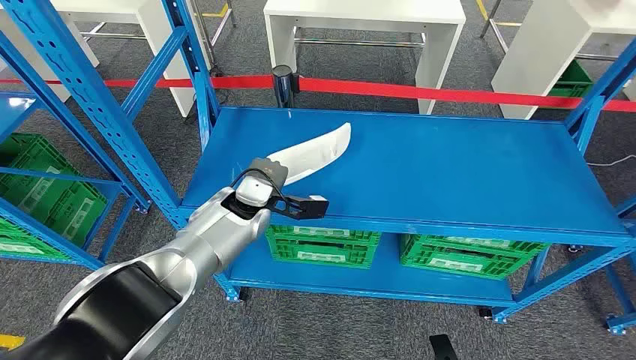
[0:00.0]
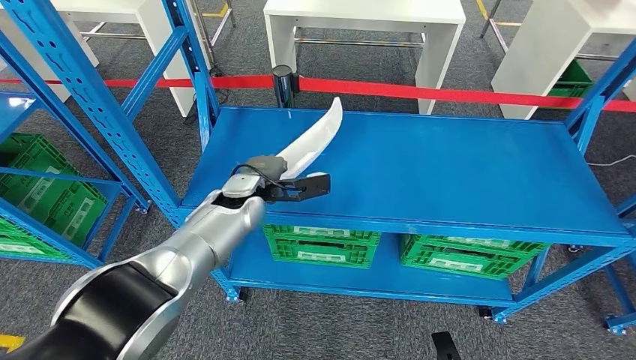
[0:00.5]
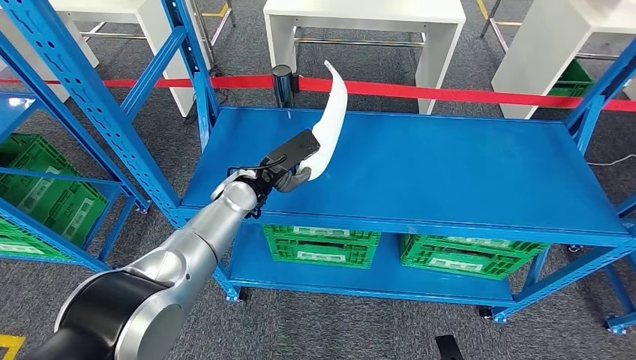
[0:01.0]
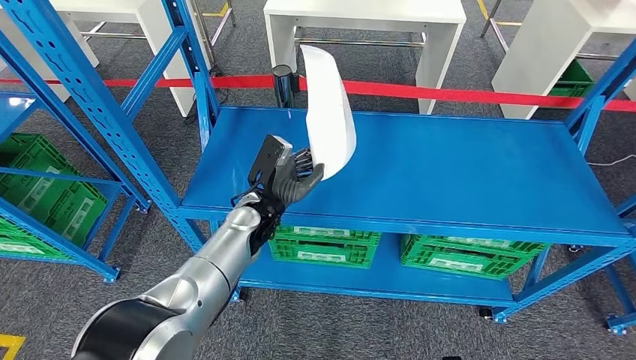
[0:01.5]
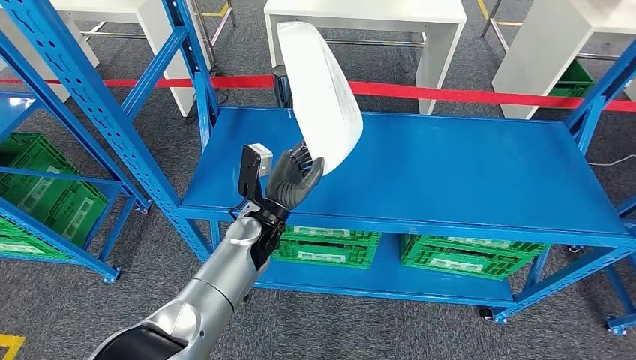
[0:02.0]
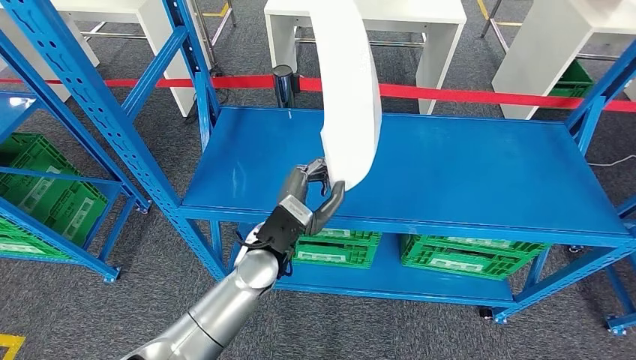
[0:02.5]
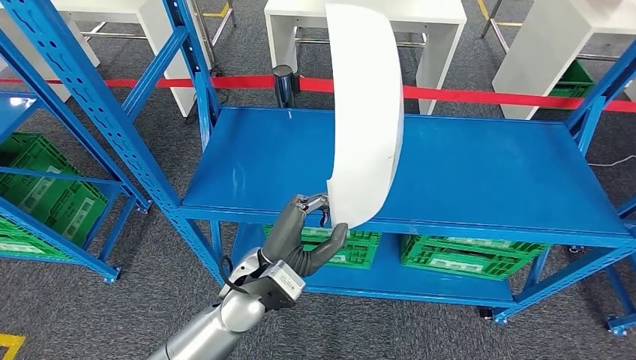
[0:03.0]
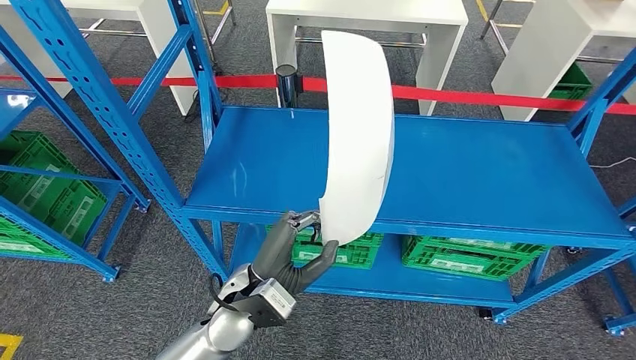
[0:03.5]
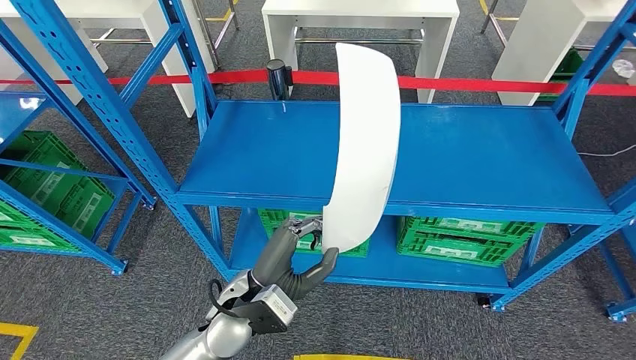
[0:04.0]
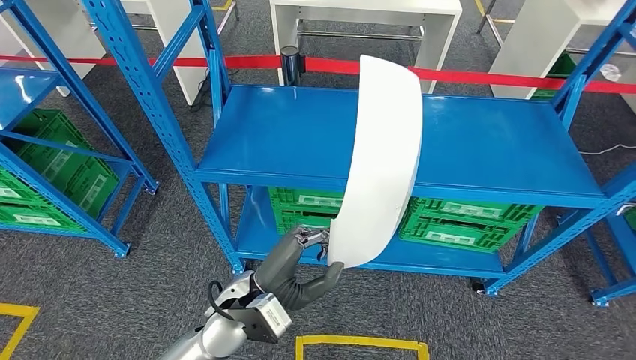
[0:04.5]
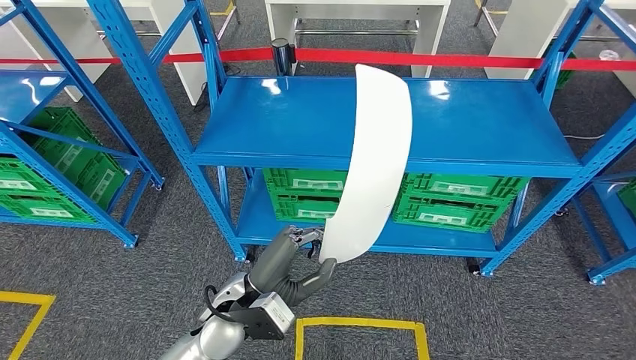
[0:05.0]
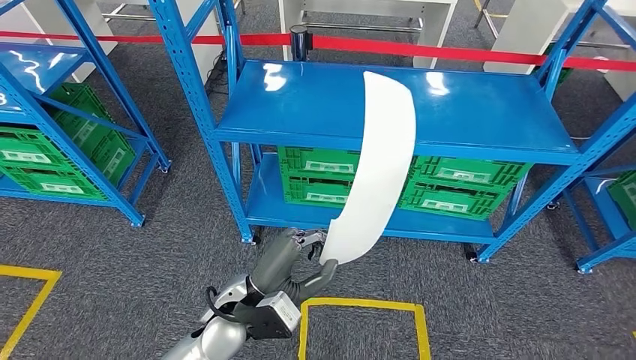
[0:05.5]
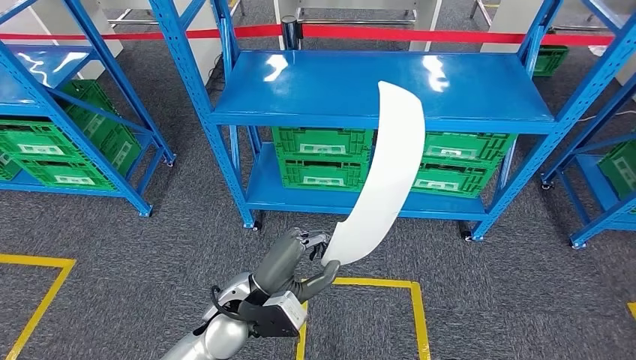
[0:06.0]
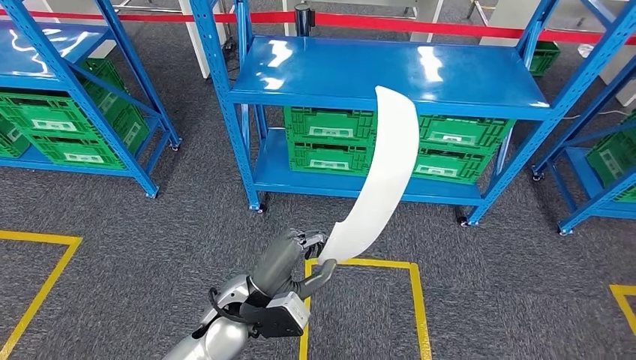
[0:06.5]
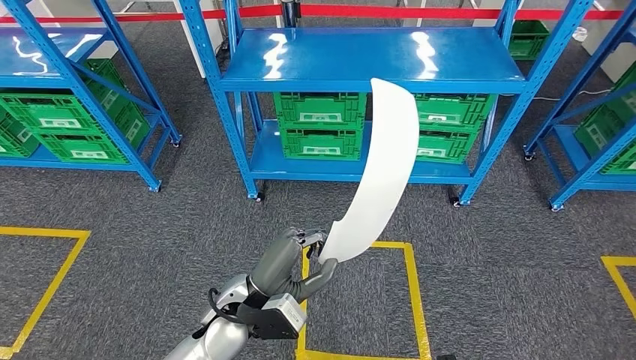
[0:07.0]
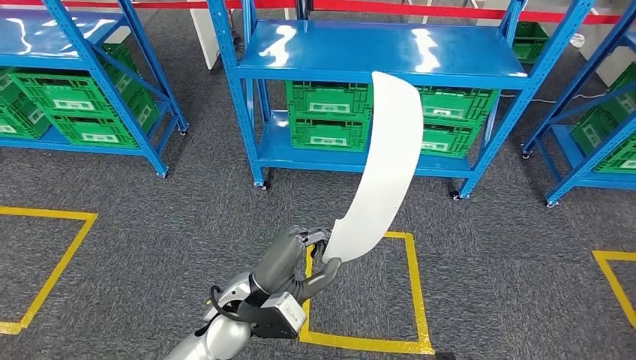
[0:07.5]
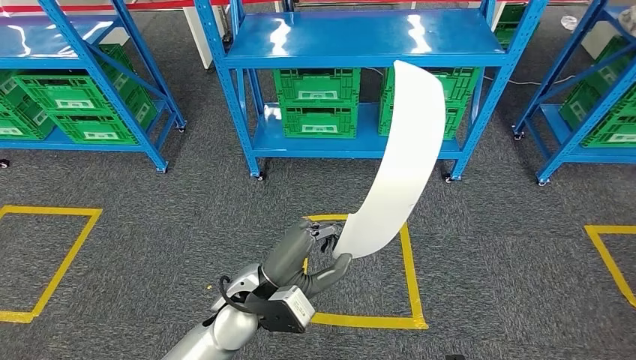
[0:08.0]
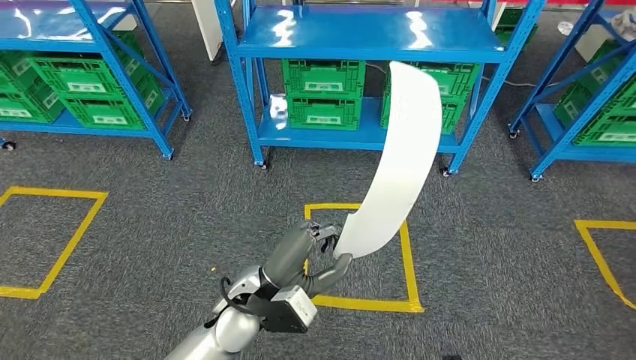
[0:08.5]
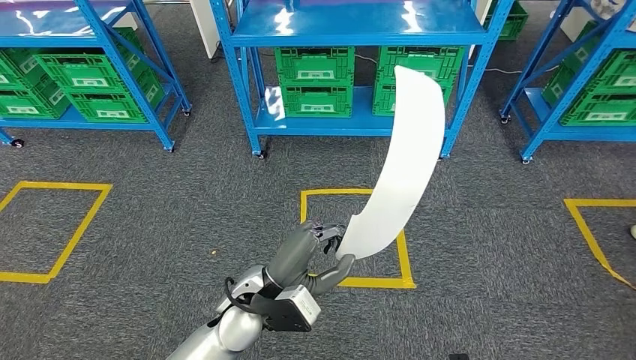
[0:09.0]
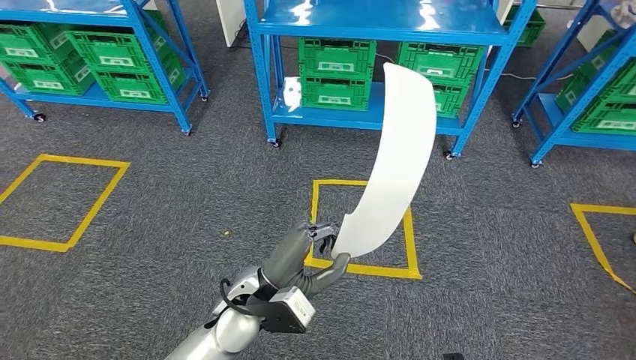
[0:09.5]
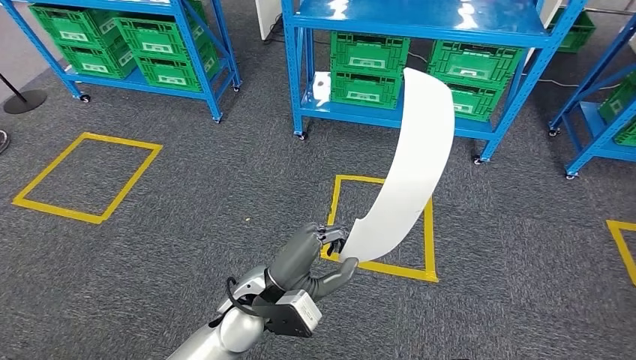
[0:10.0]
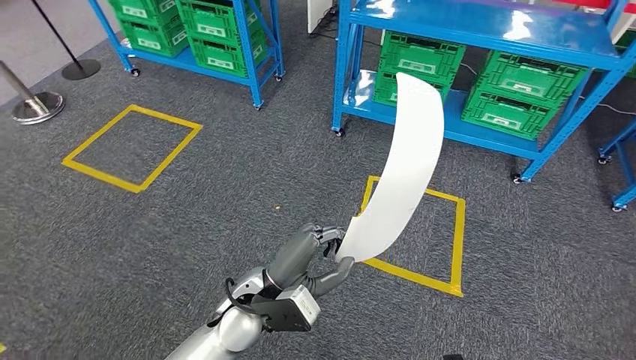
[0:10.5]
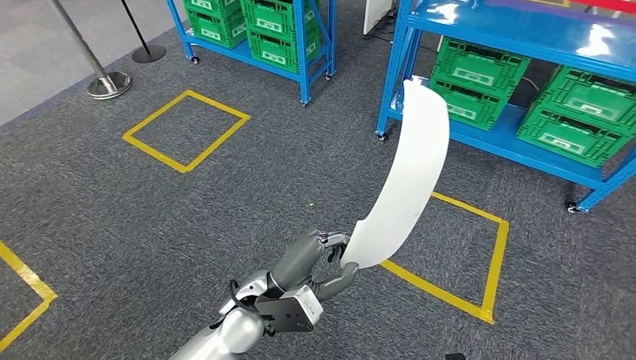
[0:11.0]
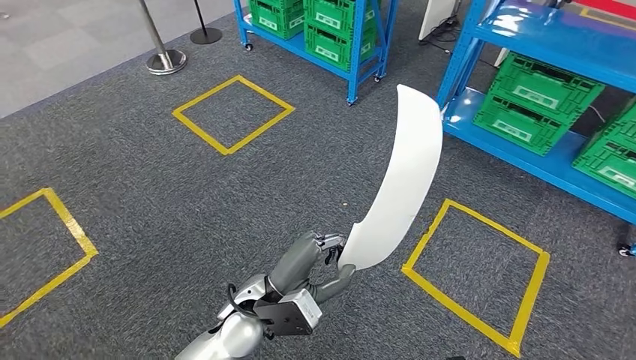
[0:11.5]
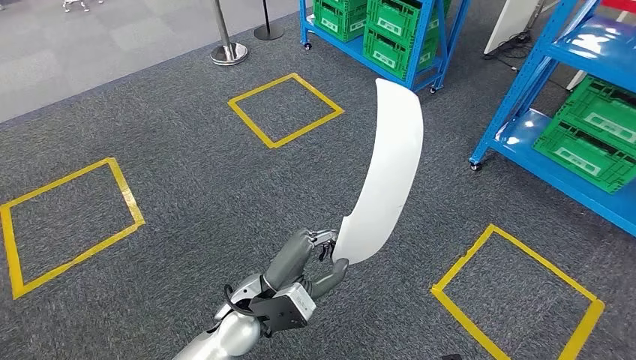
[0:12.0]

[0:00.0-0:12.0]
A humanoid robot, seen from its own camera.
Step, 0:00.0 to 0:02.0: Pick up the small parts from the shelf.

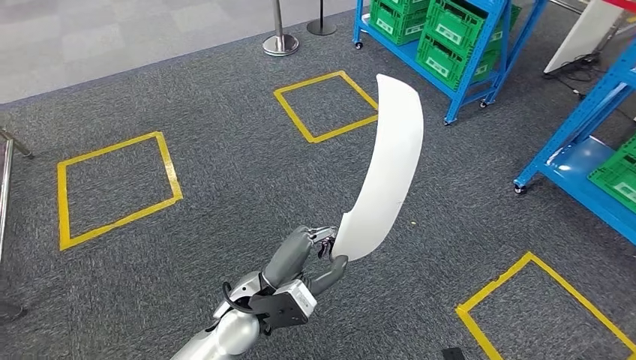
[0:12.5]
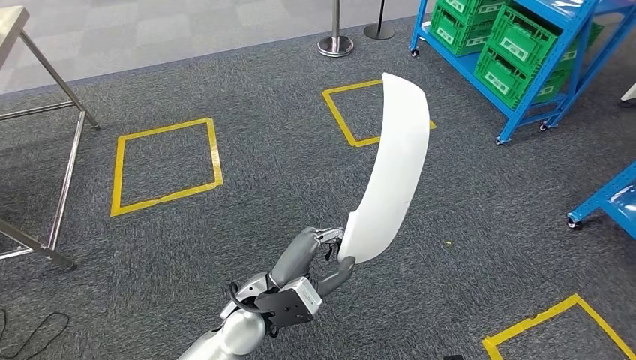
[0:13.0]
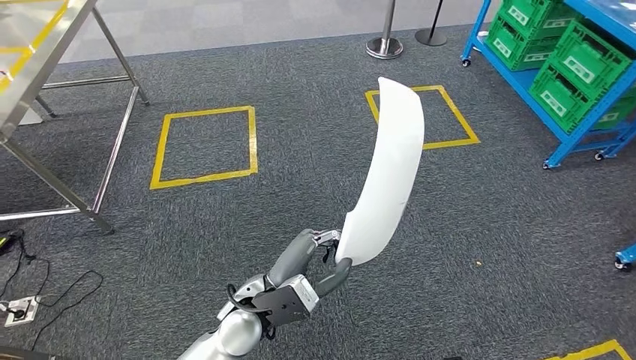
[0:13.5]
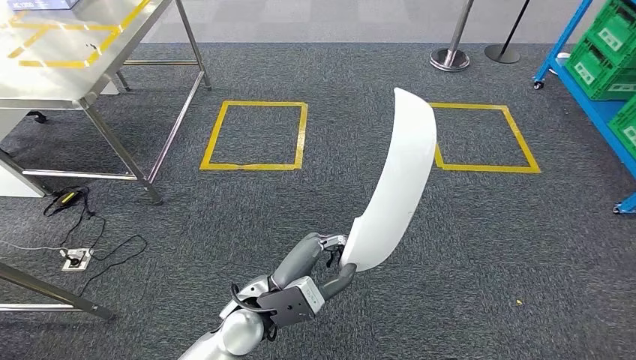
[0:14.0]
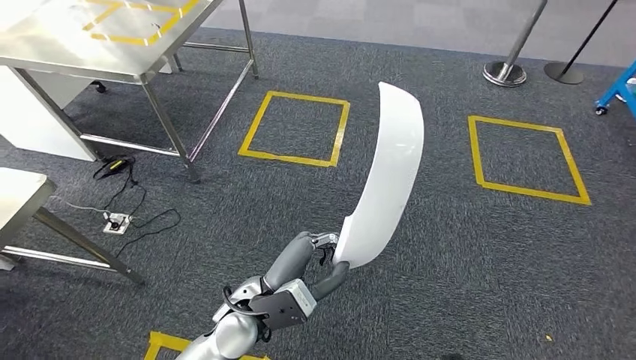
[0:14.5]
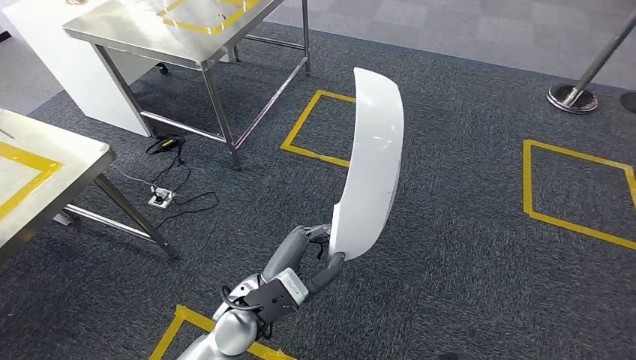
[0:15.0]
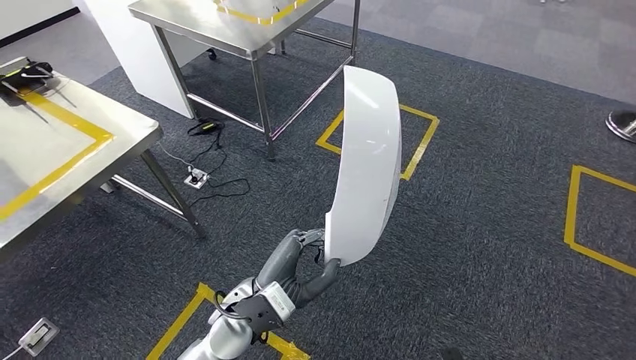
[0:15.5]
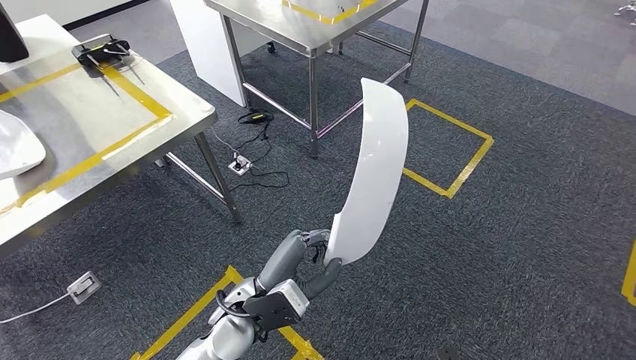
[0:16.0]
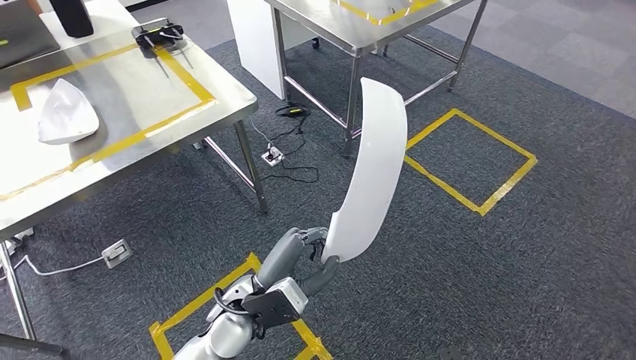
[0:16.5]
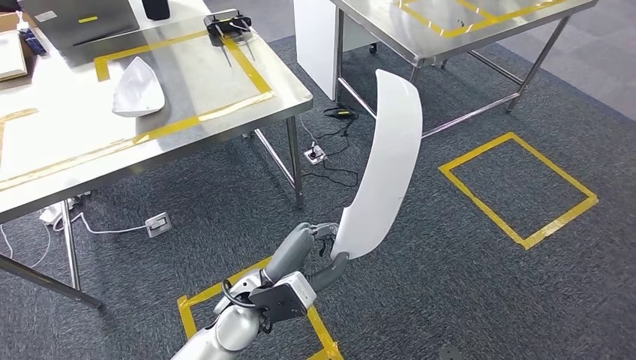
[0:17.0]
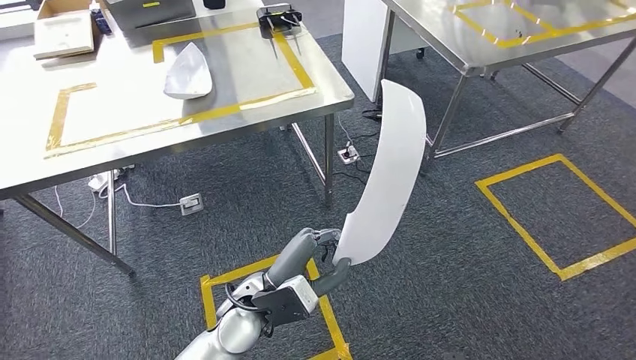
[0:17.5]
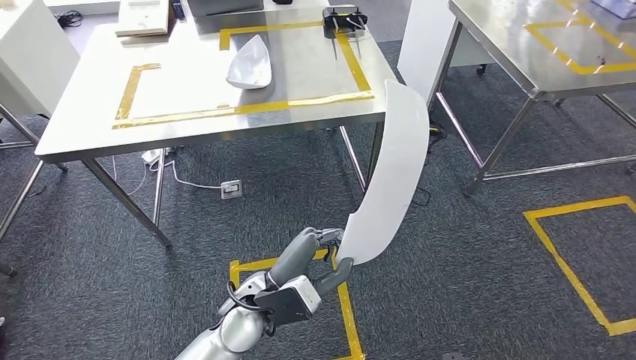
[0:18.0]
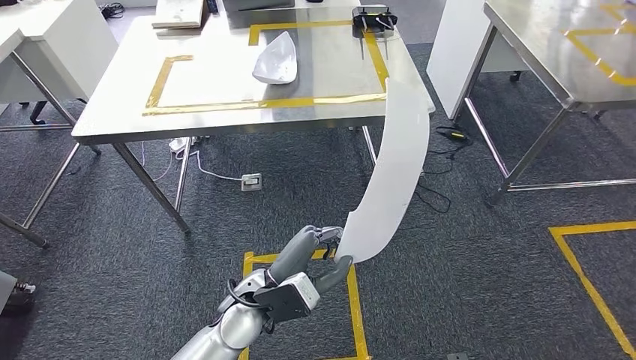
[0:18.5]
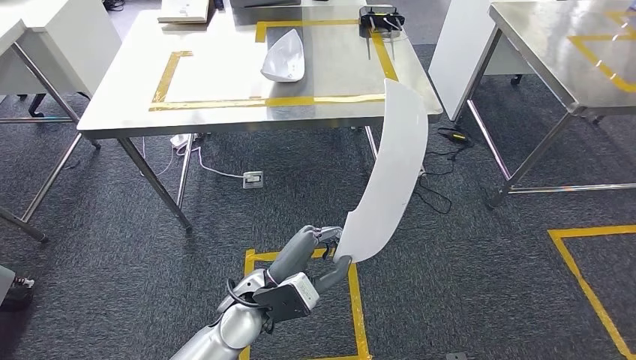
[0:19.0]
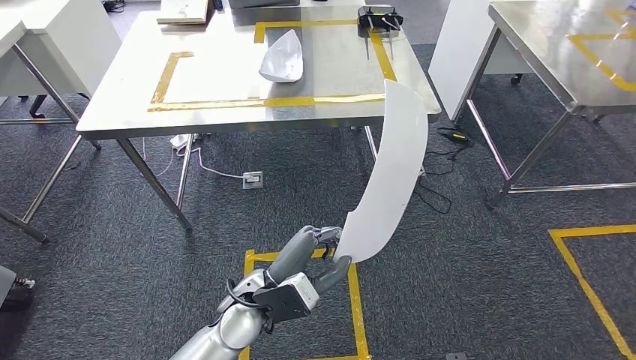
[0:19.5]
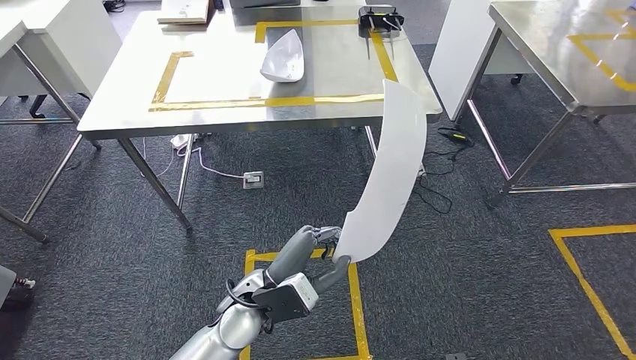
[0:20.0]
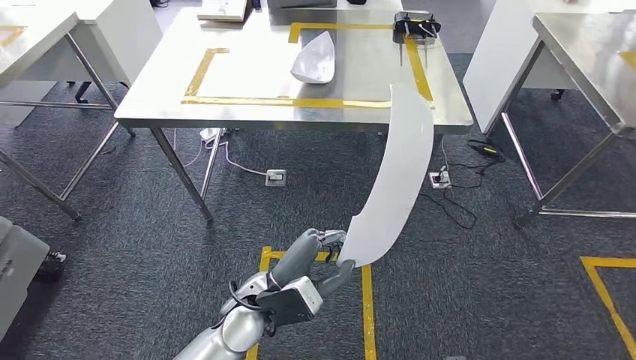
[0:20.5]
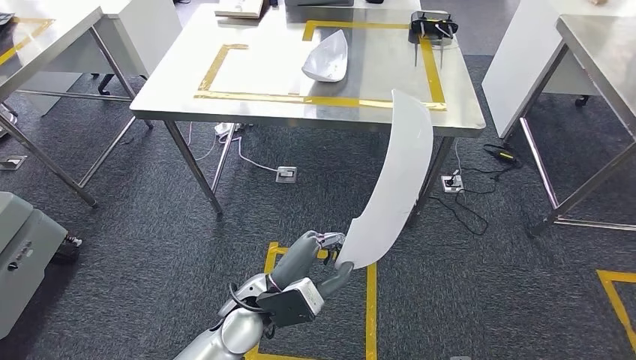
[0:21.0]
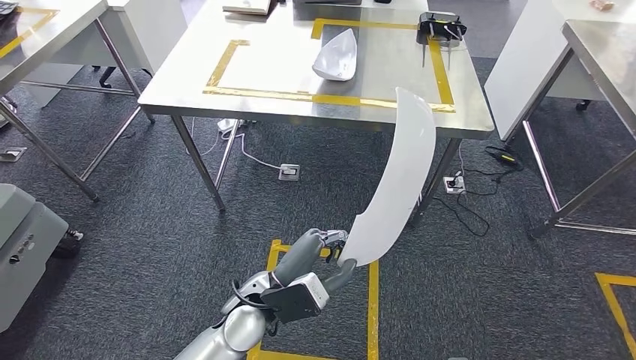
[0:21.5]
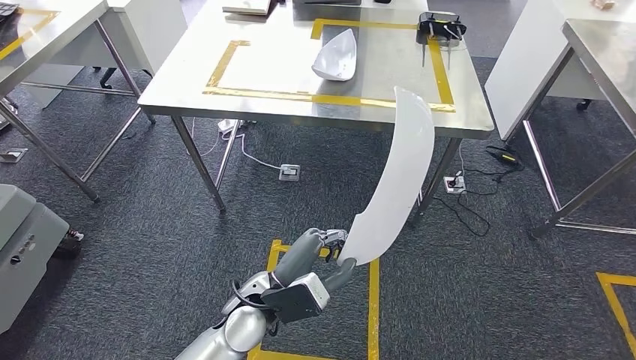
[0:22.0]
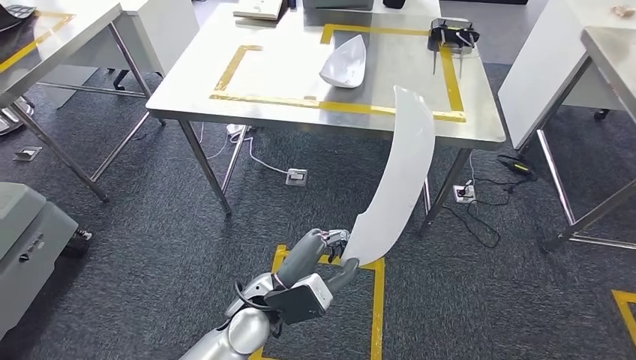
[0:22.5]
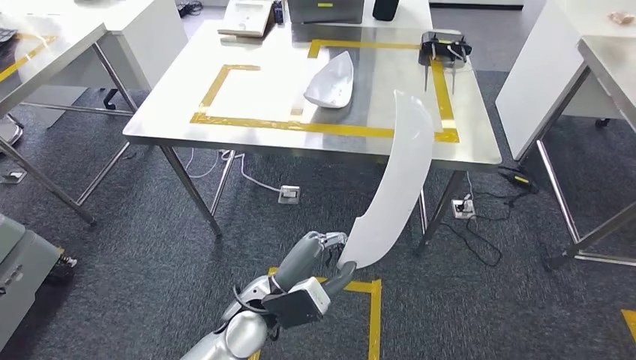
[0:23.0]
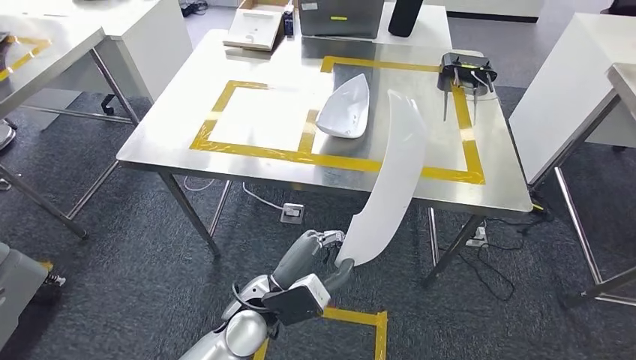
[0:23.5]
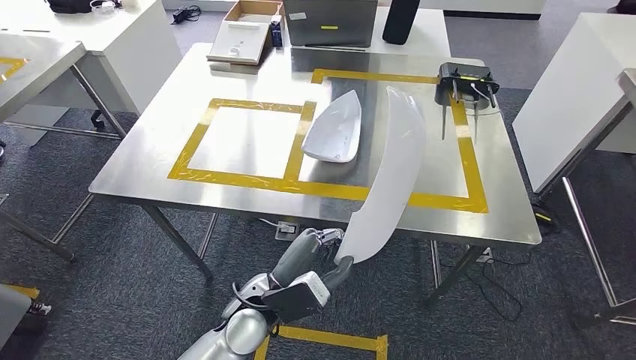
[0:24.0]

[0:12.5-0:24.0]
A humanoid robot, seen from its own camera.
Step, 0:12.5 to 0:17.5: Move the small parts to the workbench.
0:18.5 to 0:20.0: Both hands stay about where they are.
